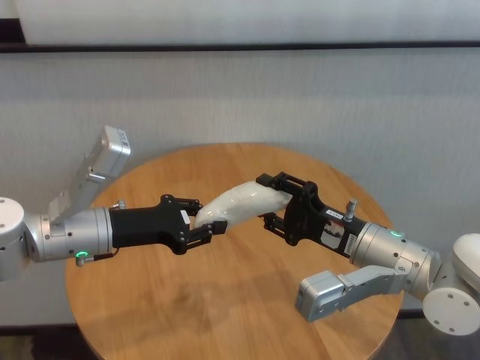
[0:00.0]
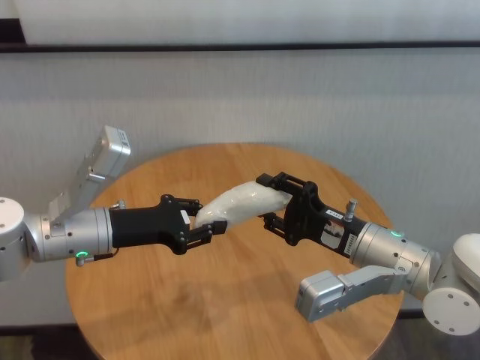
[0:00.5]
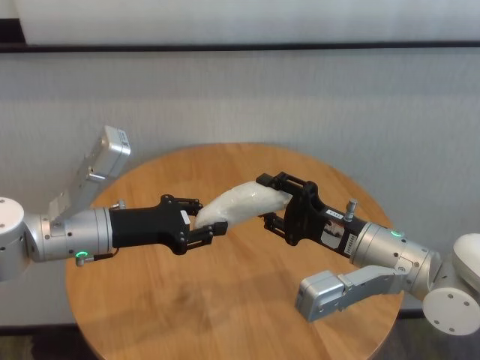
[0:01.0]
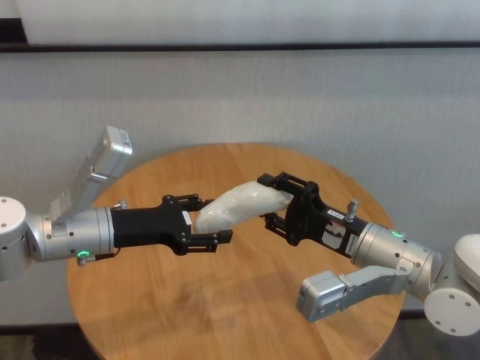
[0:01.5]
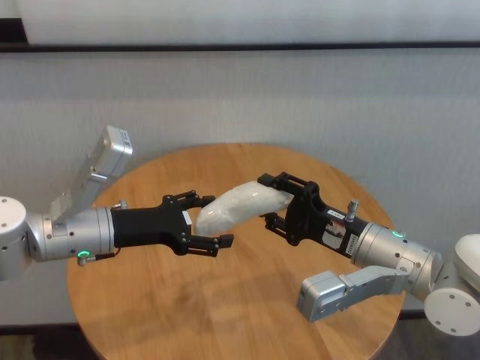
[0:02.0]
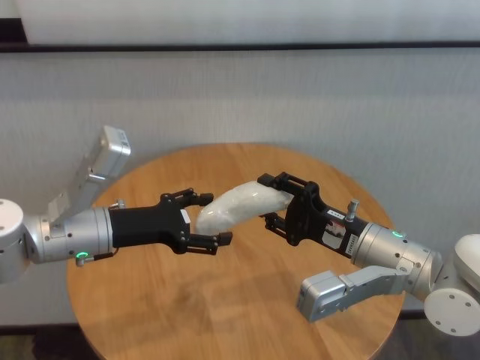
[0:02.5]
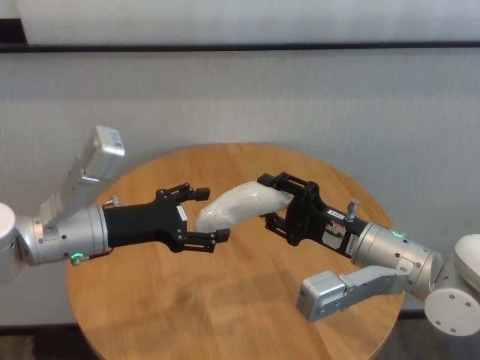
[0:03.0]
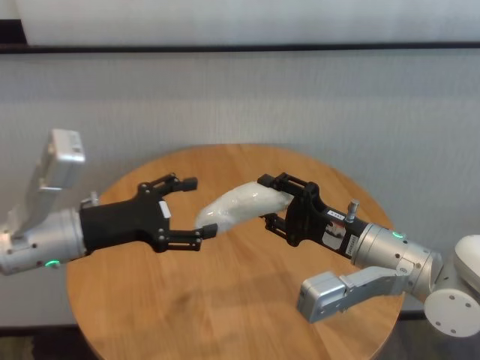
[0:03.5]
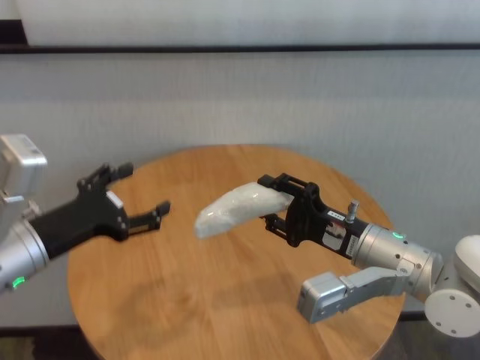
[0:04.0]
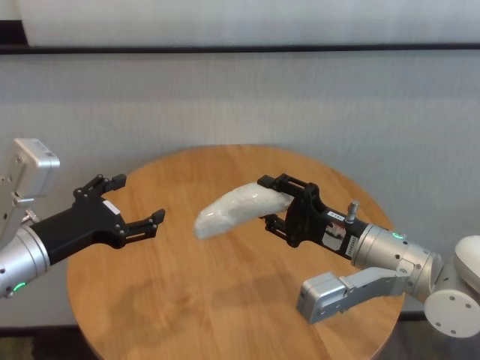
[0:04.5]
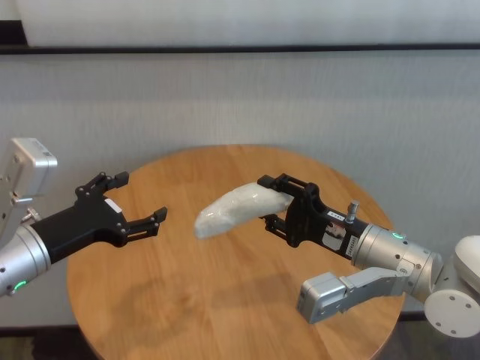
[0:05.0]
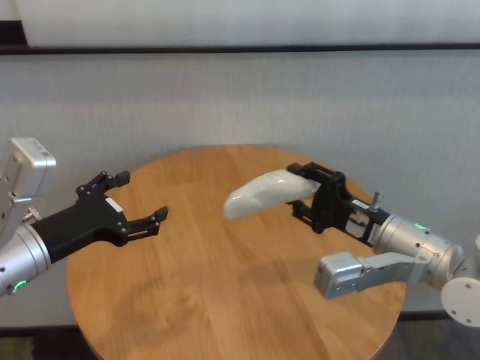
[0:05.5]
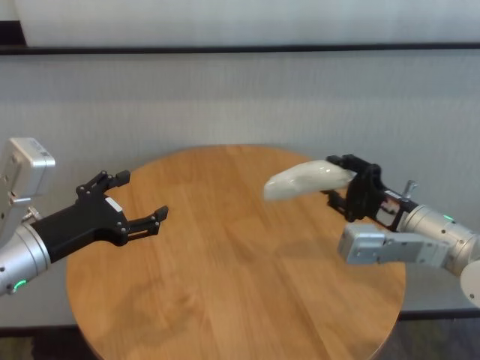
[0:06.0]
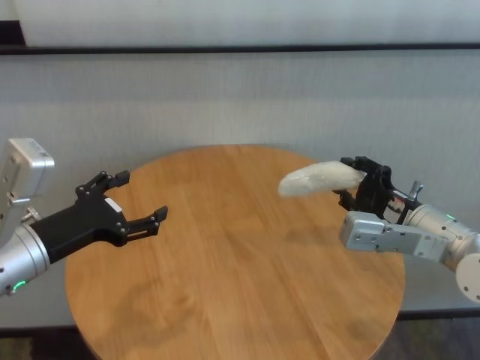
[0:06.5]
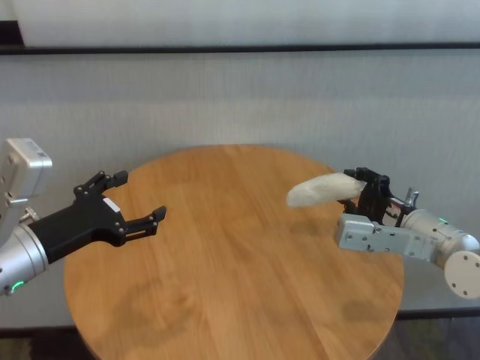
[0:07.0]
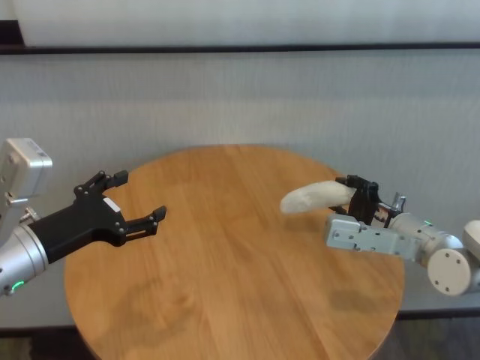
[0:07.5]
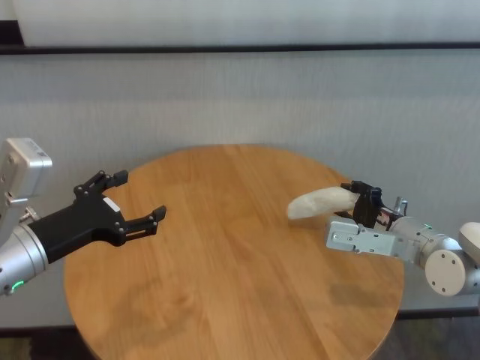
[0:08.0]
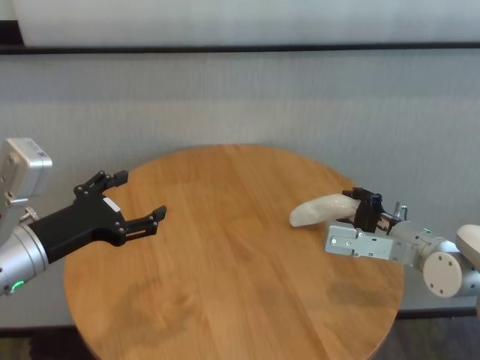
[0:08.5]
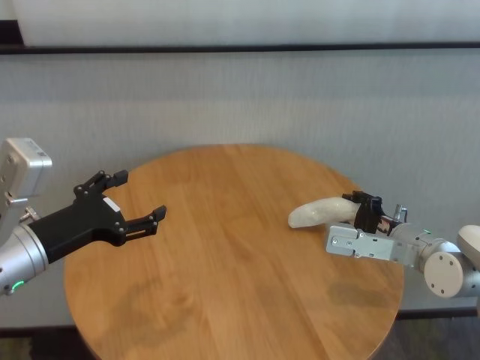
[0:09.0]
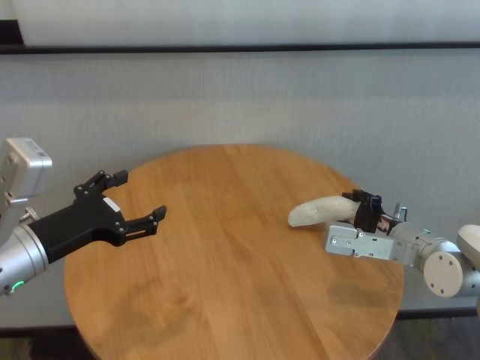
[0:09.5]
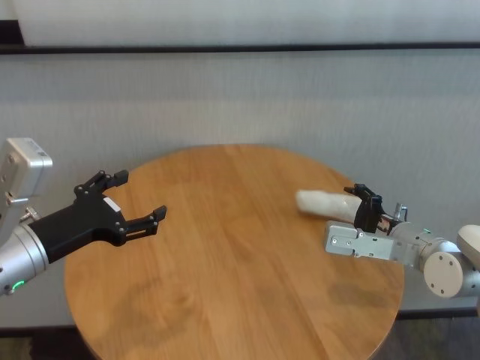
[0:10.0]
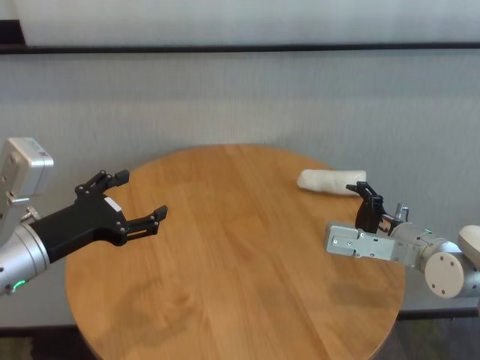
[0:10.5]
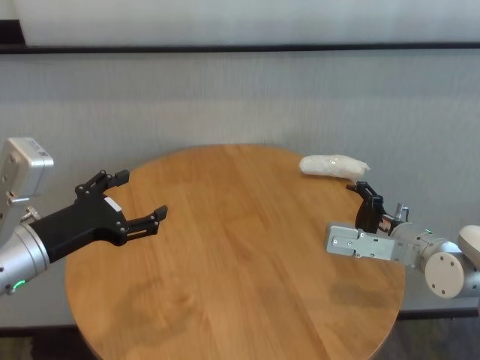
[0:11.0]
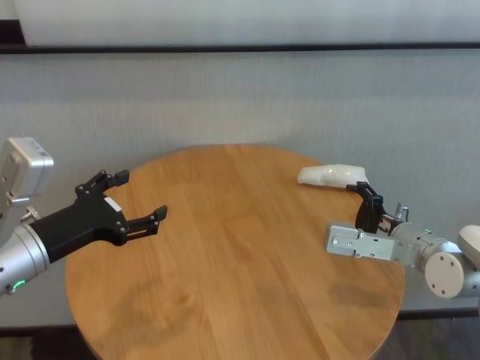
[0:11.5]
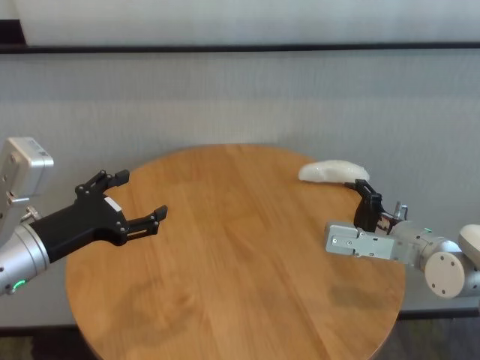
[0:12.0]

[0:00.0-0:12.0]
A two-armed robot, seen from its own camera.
Task of the whole recording: One hand took the sandbag from the other hand and placed it on the table.
Step, 0:00.0 to 0:02.0: Pass the paper ball to the right gripper.
Step, 0:03.0 to 0:10.0: Place the paper ball on the table with right gripper.
